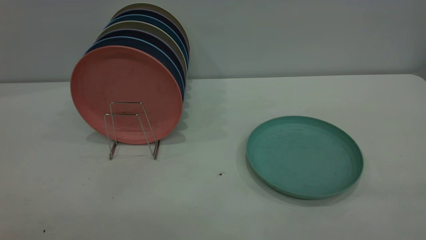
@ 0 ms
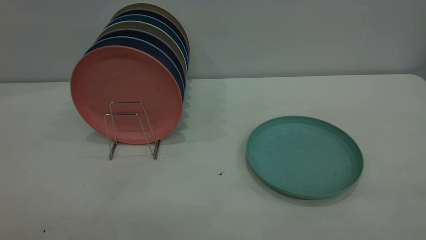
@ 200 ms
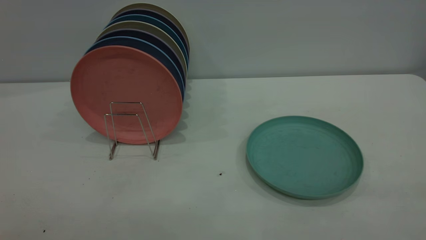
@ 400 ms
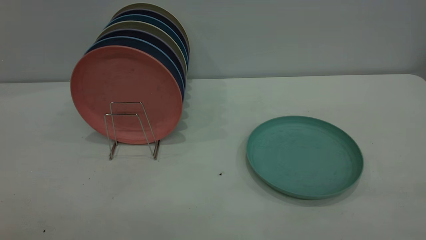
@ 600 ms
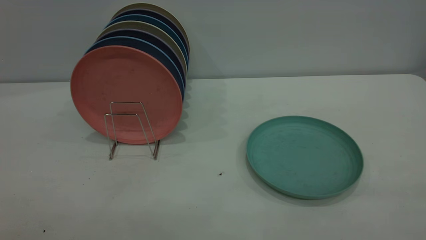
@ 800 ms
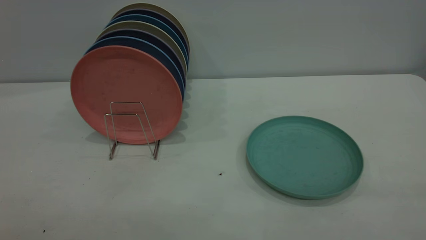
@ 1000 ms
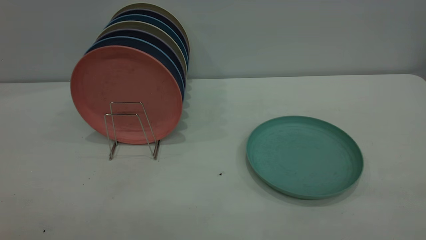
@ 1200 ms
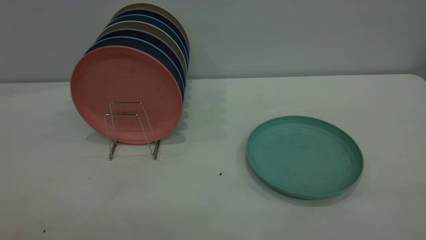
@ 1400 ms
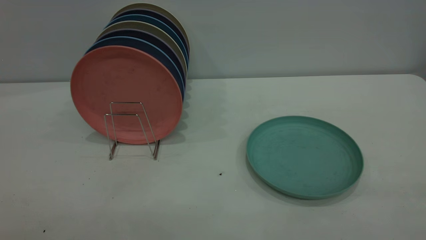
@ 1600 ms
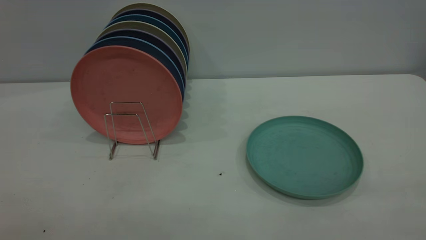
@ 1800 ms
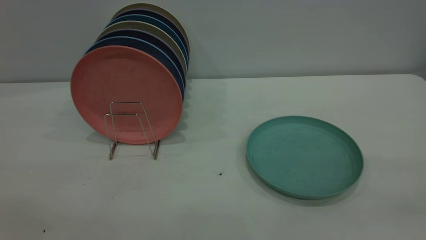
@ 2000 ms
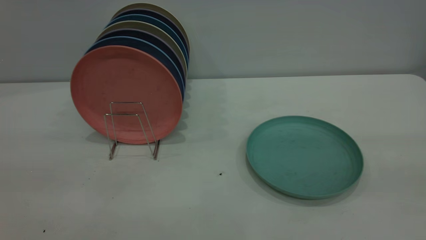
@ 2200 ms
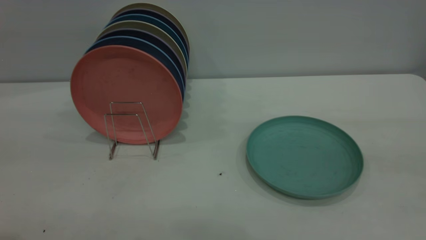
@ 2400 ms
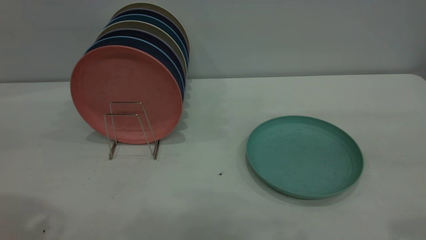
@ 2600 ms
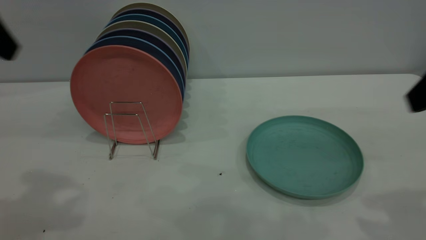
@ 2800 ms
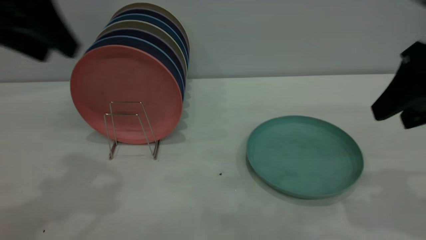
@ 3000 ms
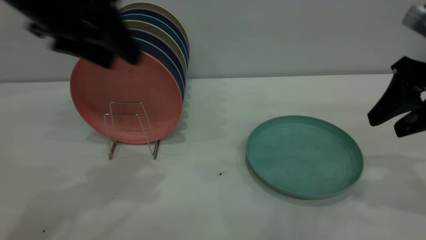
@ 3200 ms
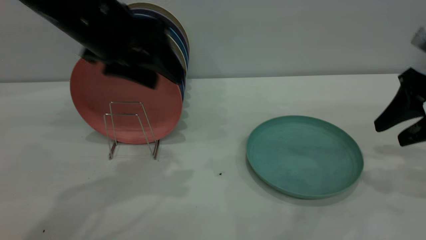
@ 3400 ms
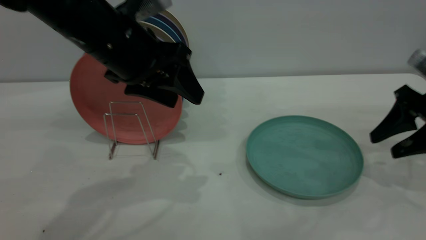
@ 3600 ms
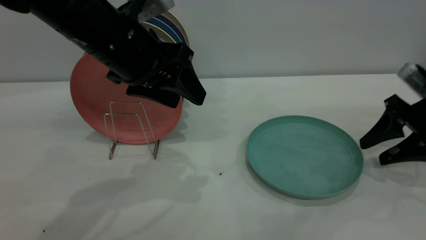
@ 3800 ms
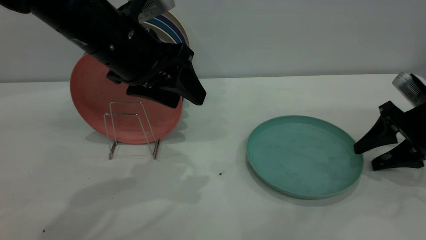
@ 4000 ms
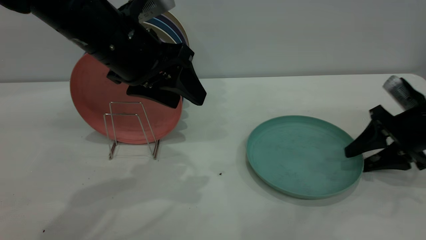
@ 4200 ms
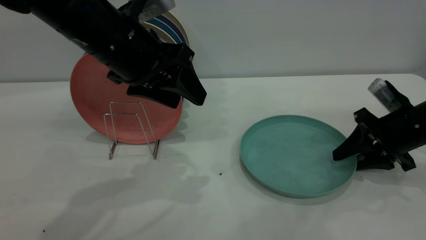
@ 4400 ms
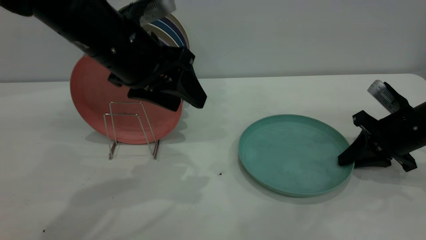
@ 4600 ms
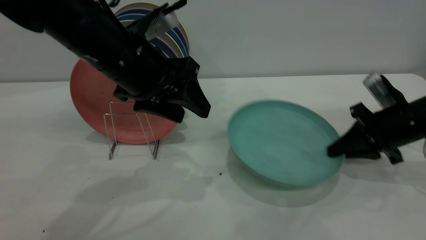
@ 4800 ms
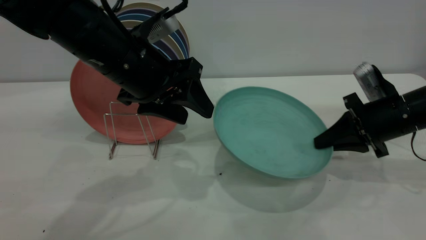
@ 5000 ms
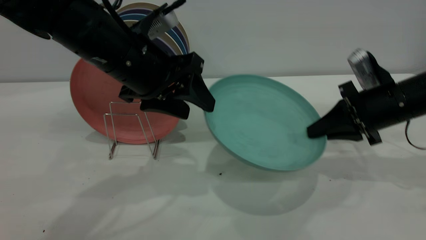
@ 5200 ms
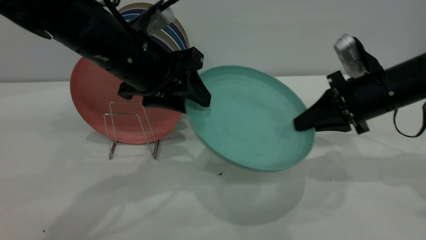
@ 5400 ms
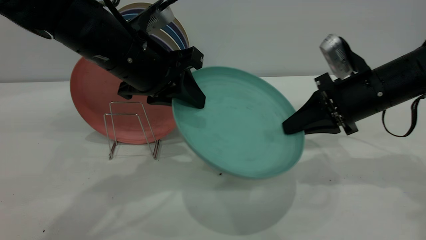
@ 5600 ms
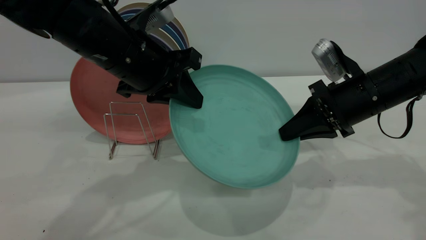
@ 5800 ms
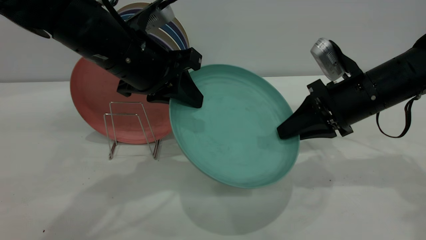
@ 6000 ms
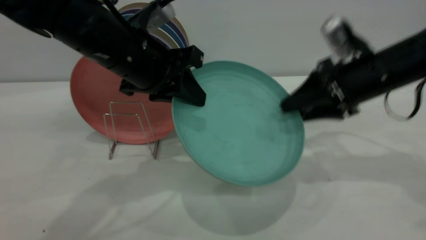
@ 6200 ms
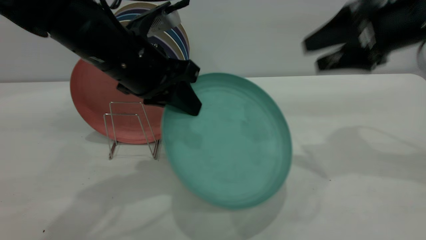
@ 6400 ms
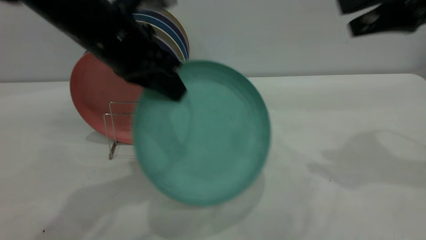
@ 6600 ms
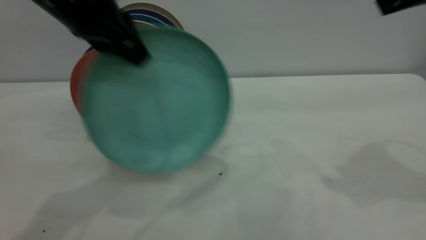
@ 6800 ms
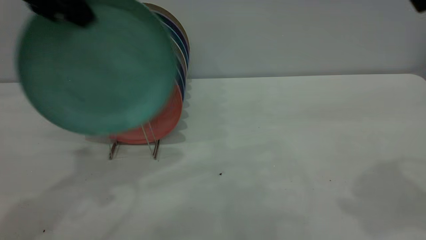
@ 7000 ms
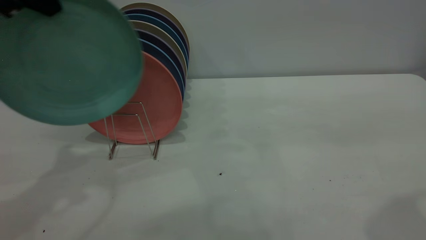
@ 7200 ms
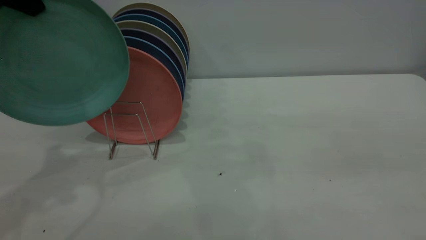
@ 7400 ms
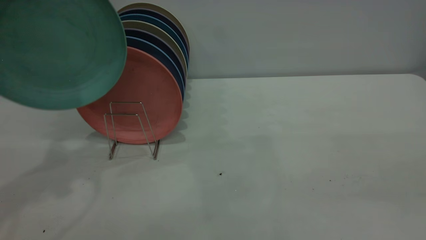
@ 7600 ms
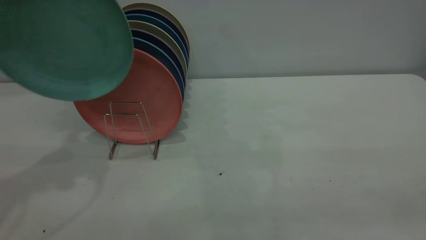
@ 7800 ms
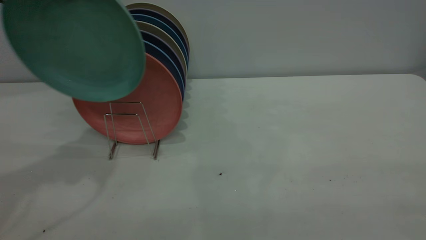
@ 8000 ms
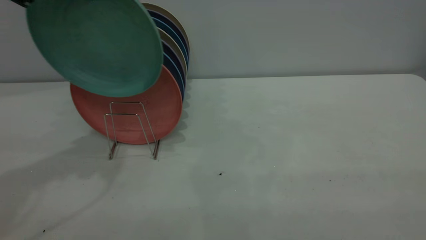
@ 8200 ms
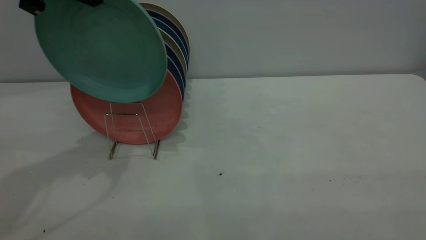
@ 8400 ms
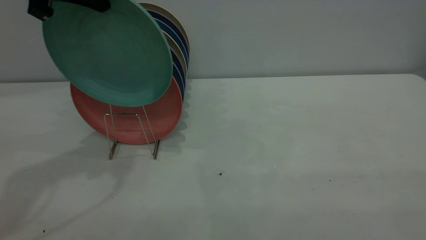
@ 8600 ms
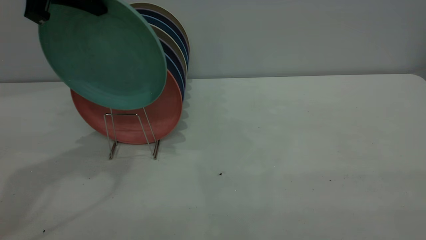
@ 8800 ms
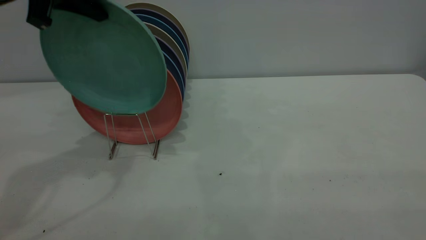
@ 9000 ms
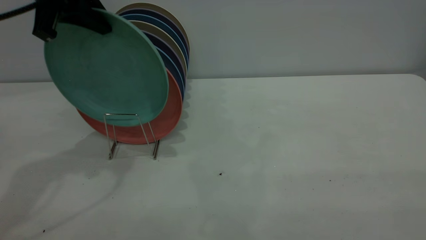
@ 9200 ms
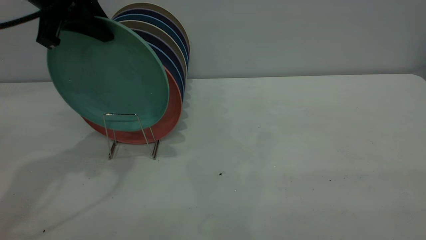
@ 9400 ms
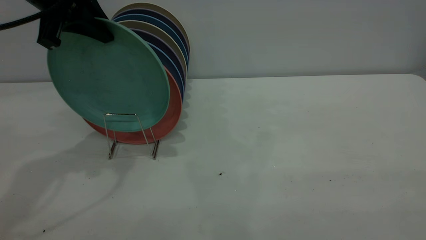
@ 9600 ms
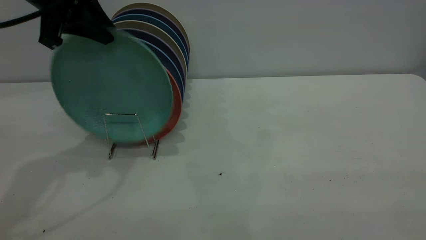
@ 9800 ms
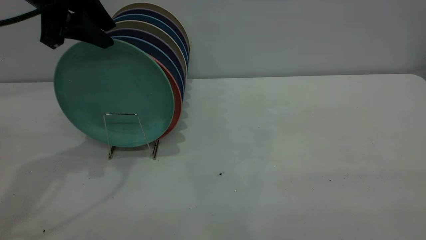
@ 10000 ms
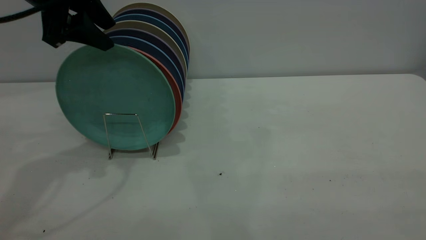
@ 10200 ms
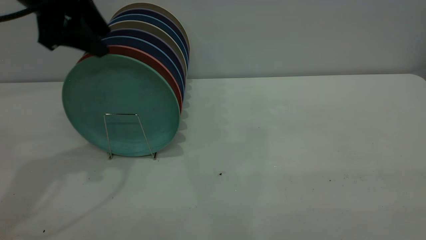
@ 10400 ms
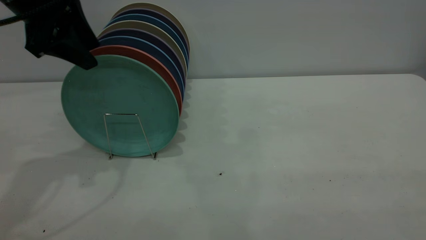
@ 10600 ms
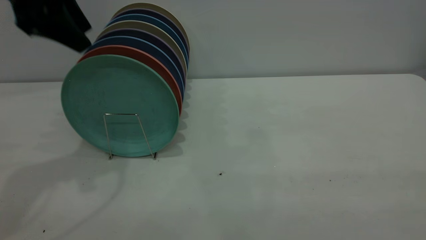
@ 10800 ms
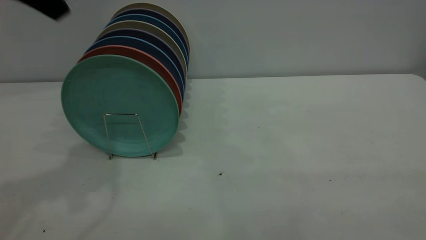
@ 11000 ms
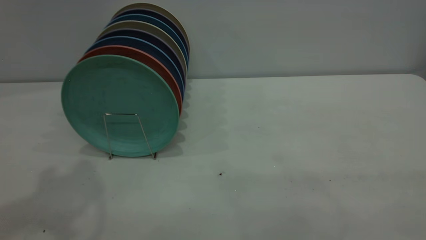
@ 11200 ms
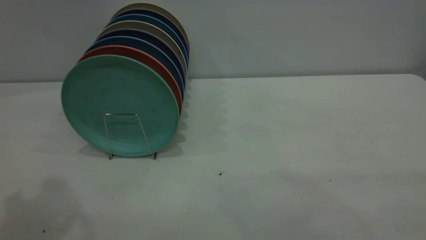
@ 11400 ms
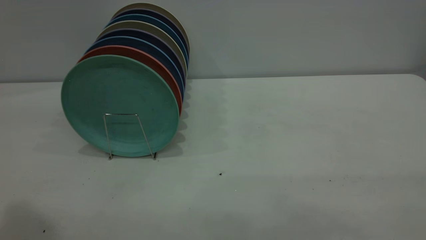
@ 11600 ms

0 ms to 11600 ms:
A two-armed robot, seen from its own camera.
Task of the whole recording: the right gripper grasp the green plate, the right gripper pass the green plate to the left gripper, and the left gripper place the green plate on the plate rack.
Step, 0 ms to 4600 ms: Pick up the plate with the right gripper.
Step, 5000 ms to 6200 ms: Pass the plate from the right gripper to the left gripper.
Step, 6400 ms to 10600 ms: Place the plate on the shelf.
0 ms to 1400 ms: Both grippers stay put.
2800 ms to 4400 ms: The right gripper goes some 25 cm downward and forward, and closes; the left gripper is displaced to the right, downward and forward by about 20 cm.
4400 ms to 5800 ms: The right gripper travels to the left and upward by some 10 cm, and closes up. Meanwhile the left gripper closes its fingers.
5800 ms to 7200 ms: The right gripper heads upward and backward, covering some 30 cm, and opens its fingers; the left gripper shifts approximately 20 cm upward and to the left.
7200 ms to 8800 ms: The left gripper moves forward, some 5 cm.
8800 ms to 10200 ms: The left gripper opens up.
10200 ms to 11600 ms: The left gripper travels backward and upward by approximately 30 cm.

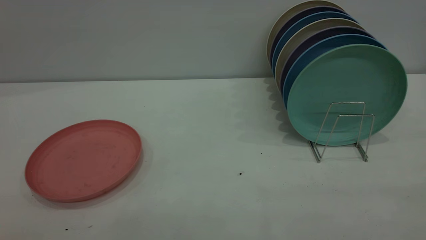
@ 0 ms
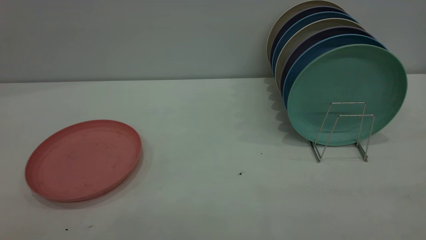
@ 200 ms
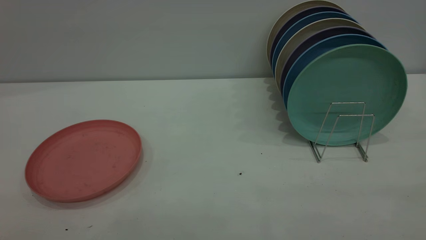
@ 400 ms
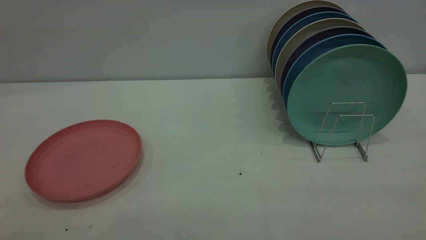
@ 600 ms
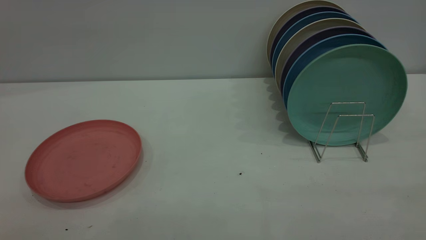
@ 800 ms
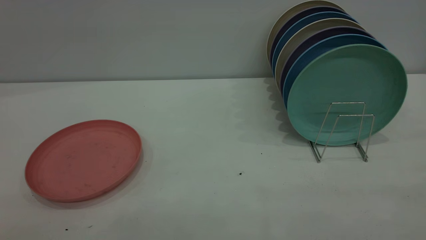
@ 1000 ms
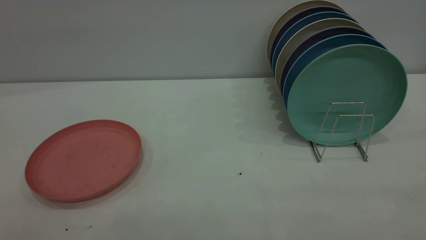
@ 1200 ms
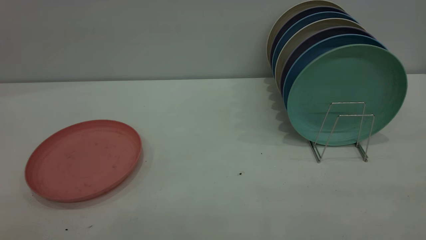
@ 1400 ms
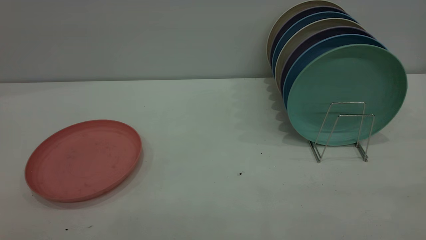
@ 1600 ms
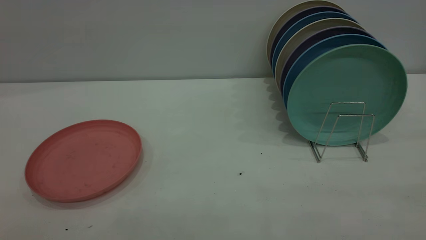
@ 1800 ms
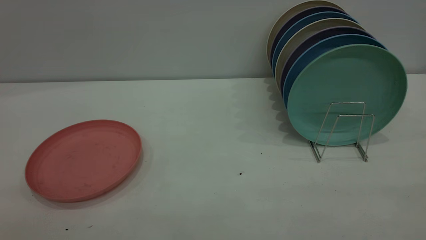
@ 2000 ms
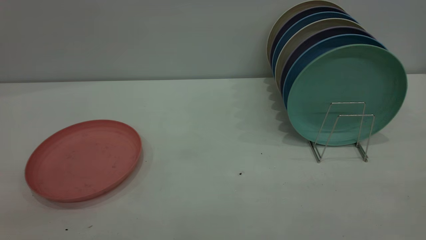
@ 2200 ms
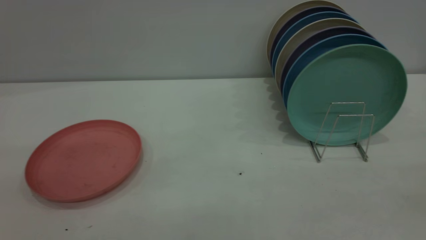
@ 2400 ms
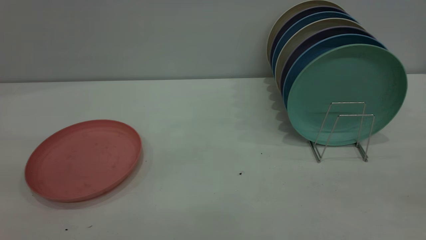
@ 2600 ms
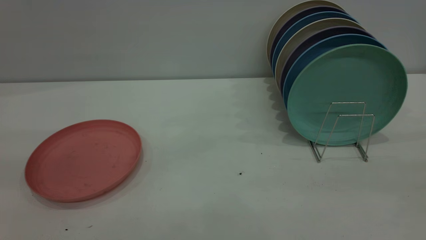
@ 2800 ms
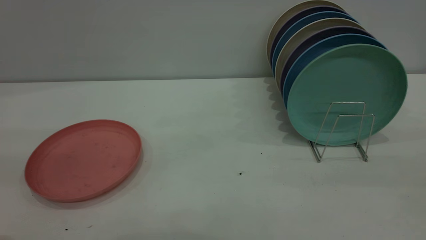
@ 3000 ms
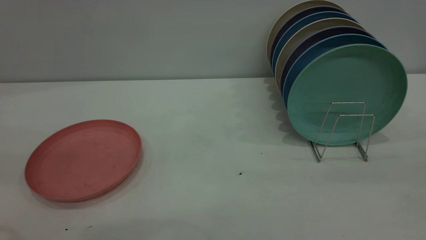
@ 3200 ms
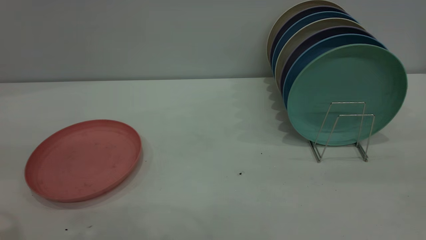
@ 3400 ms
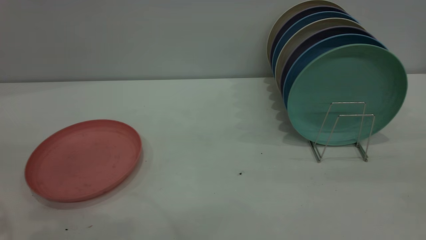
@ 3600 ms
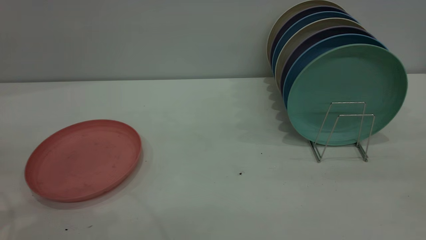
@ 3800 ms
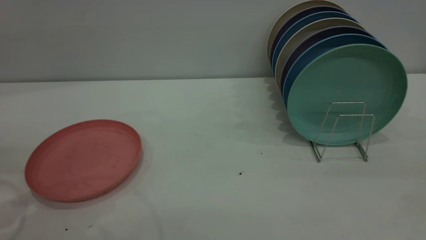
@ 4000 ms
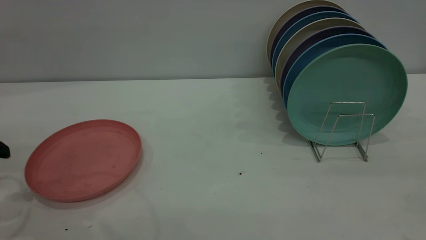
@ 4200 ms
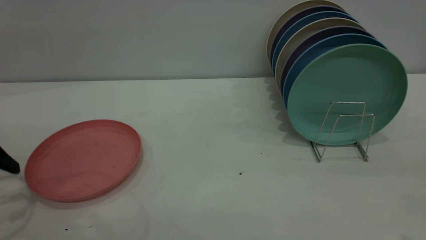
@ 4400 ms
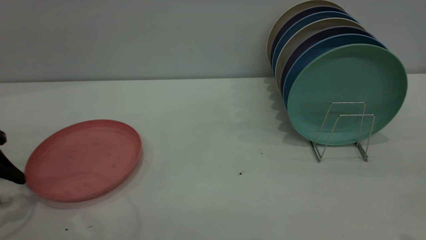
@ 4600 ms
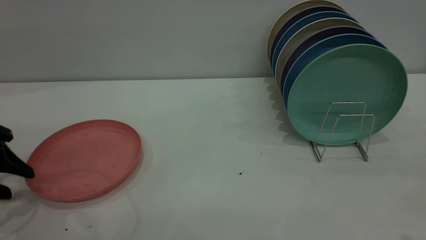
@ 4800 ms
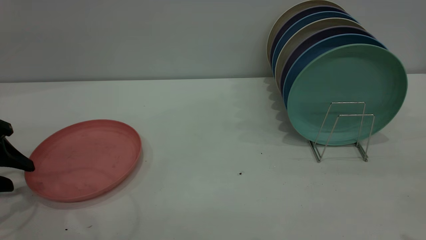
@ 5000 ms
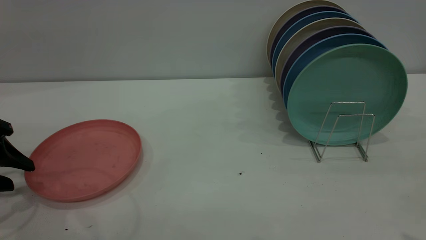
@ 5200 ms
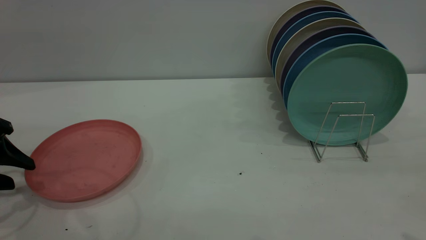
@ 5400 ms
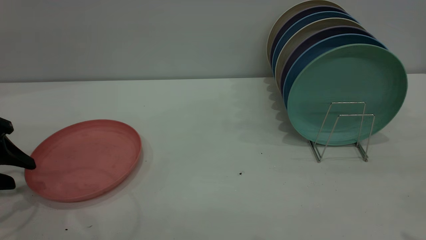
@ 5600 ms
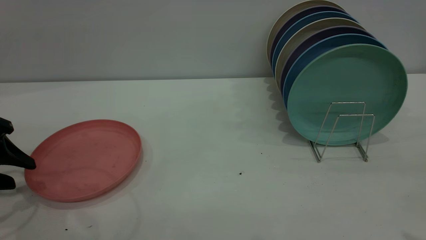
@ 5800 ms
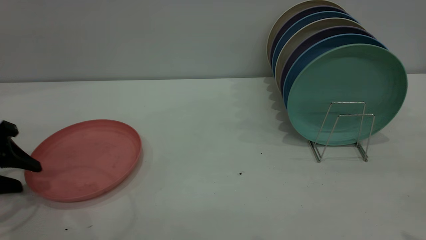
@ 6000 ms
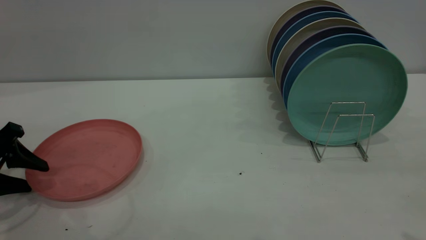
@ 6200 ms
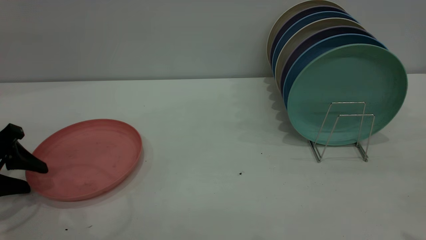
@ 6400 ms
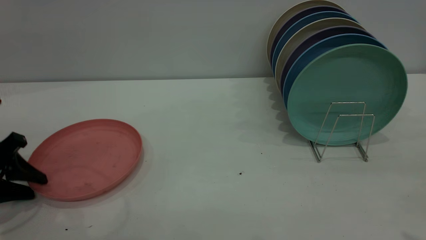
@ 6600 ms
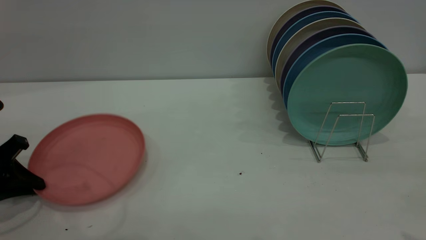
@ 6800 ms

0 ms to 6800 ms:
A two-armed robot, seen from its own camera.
Task of the whole recording: the left gripper grasp the pink plate, the left gripper pass the pink plate to the right gripper, and the right gripper place the pink plate on the plate rack.
0 ms to 1400 ms: The two grippers keep their place.
4000 ms to 5400 ms: The left gripper travels downward by roughly 5 cm.
5400 ms to 6800 ms: The left gripper closes its fingers.
